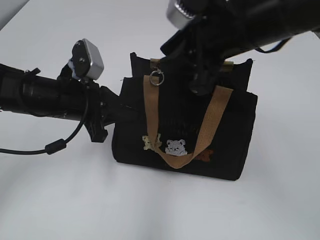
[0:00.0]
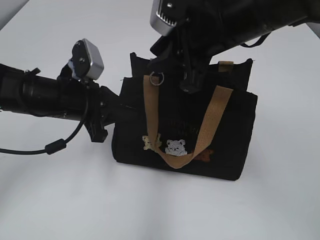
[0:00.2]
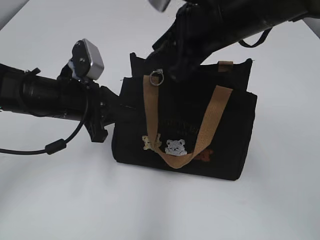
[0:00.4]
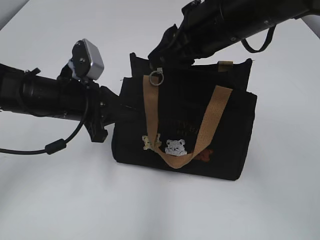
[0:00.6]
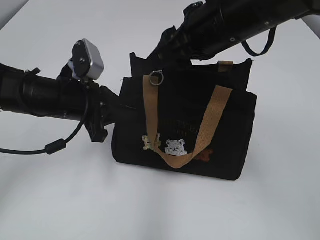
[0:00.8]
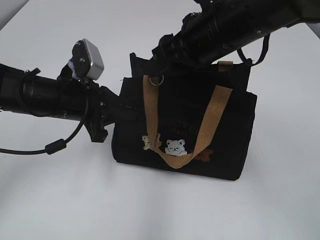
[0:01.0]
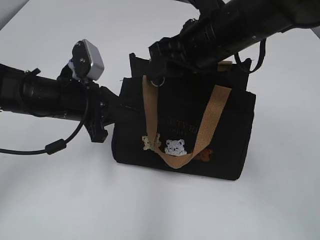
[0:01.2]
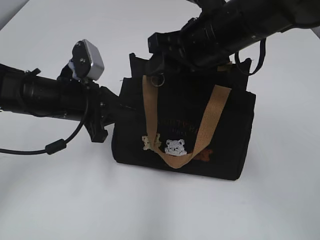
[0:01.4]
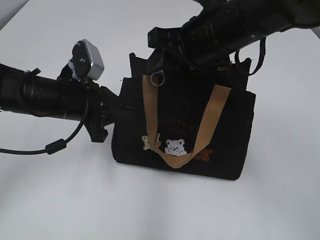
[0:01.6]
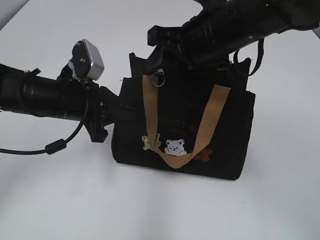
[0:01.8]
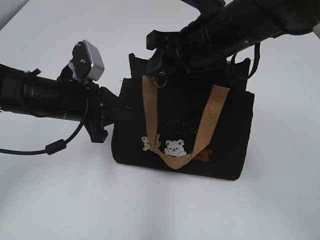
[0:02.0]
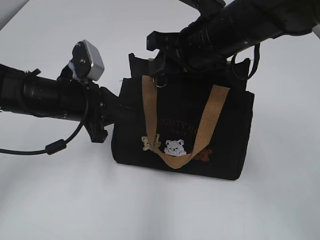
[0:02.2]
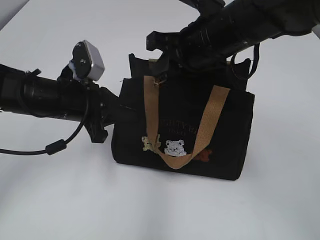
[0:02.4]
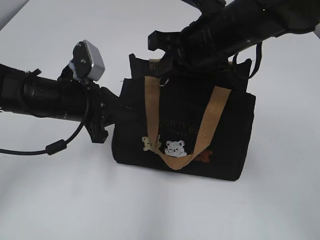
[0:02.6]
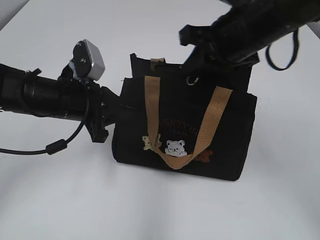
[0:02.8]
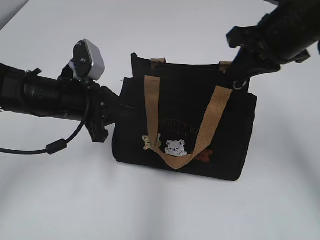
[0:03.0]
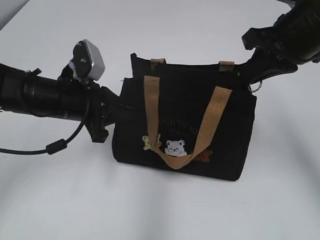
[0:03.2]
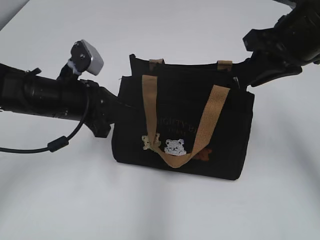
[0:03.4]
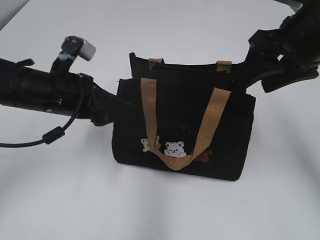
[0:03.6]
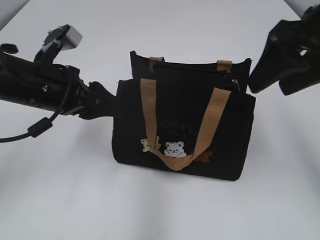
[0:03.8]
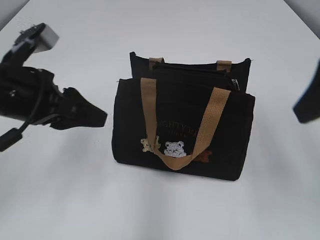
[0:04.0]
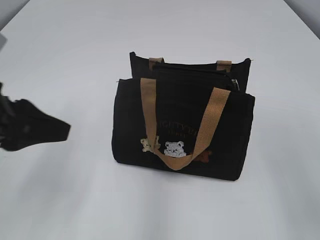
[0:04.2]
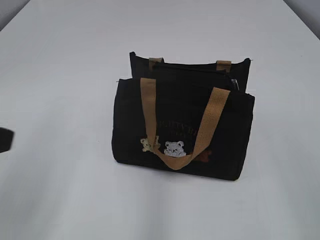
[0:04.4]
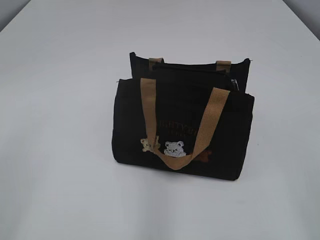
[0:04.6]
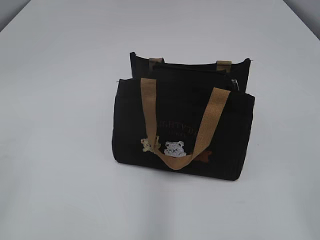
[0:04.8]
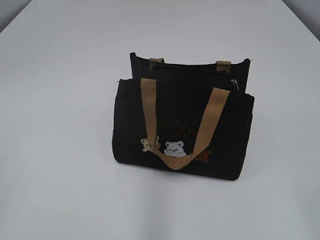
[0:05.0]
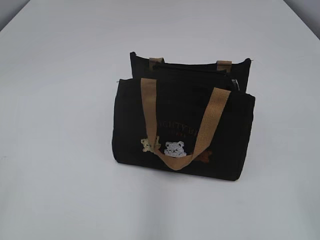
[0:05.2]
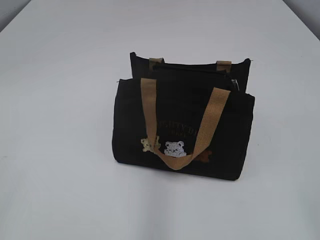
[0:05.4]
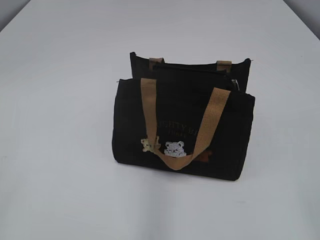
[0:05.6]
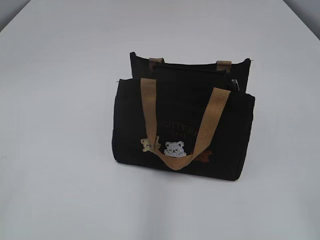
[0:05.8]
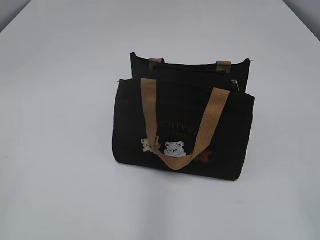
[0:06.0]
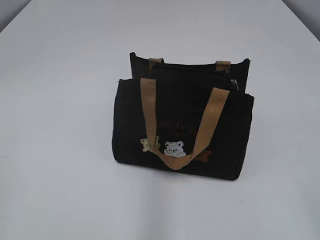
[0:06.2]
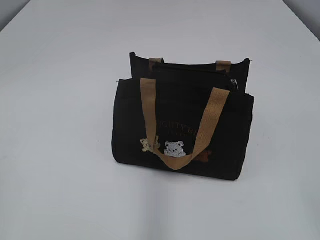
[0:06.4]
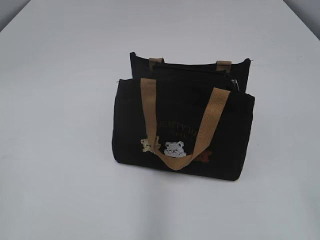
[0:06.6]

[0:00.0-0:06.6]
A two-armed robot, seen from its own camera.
Step, 0:00.0 to 0:03.2: Pull open the zipper with your right hand.
Step, 0:03.4 to 0:03.8: Hold the bag with your left hand.
0:01.6 to 0:03.2: The right gripper goes about 10 cm to the right, and closes its fingers.
0:03.2 to 0:05.0: The left gripper travels backward, to the left and upward by some 35 cm, and opens up. Meanwhile the right gripper moves backward, roughly 30 cm, and opens up.

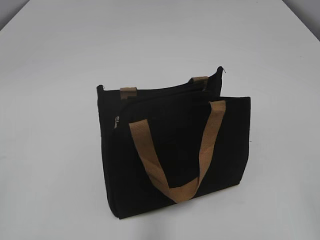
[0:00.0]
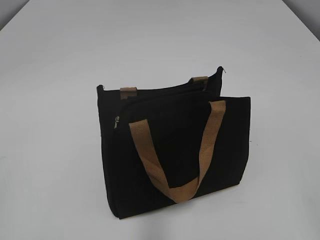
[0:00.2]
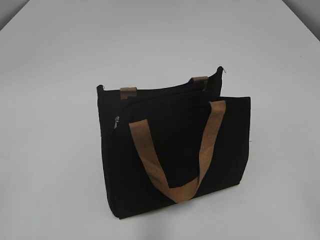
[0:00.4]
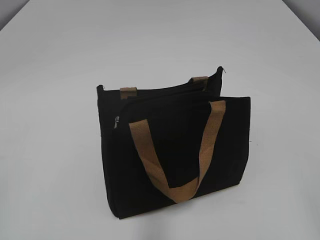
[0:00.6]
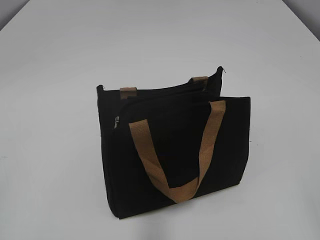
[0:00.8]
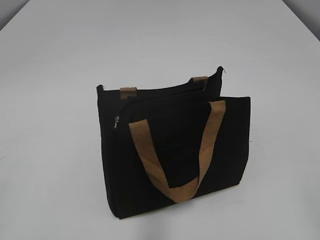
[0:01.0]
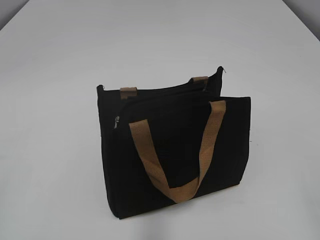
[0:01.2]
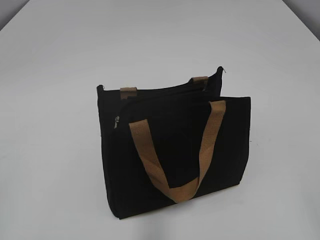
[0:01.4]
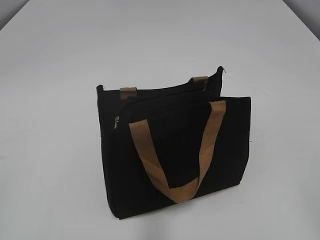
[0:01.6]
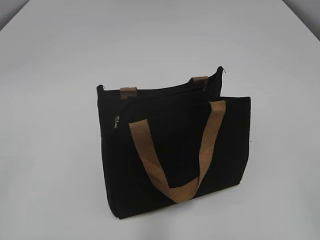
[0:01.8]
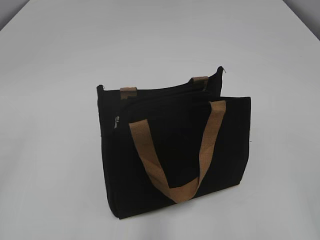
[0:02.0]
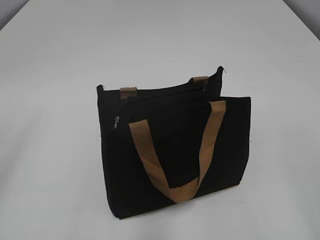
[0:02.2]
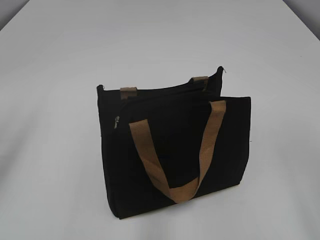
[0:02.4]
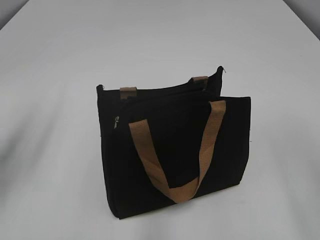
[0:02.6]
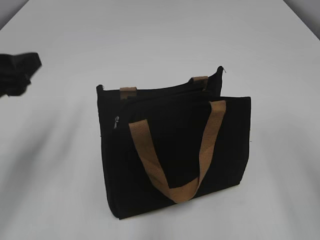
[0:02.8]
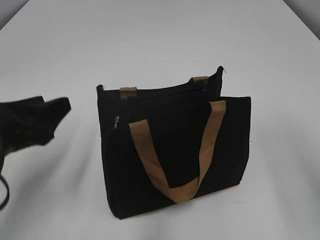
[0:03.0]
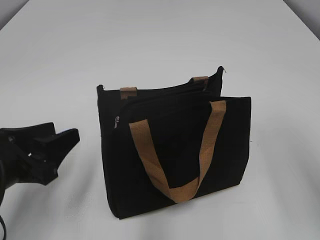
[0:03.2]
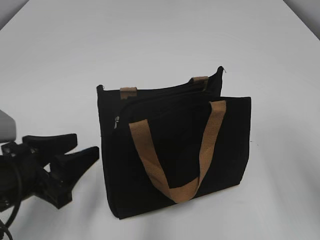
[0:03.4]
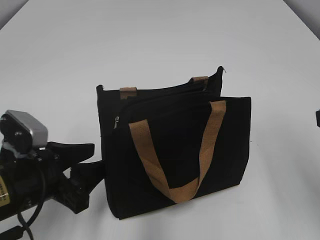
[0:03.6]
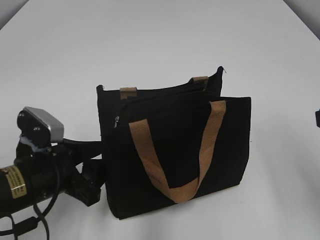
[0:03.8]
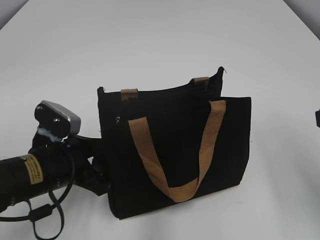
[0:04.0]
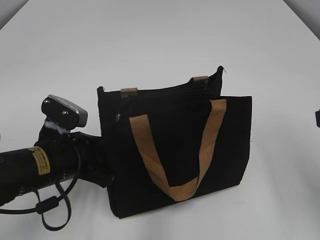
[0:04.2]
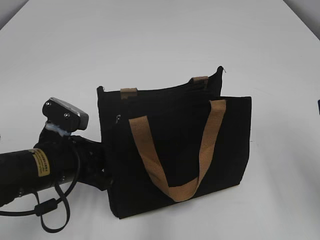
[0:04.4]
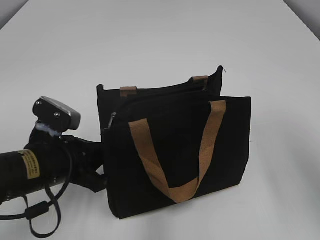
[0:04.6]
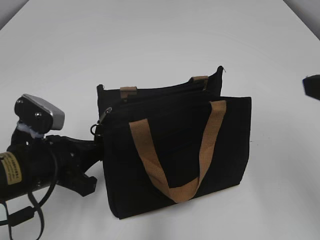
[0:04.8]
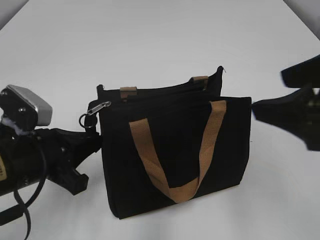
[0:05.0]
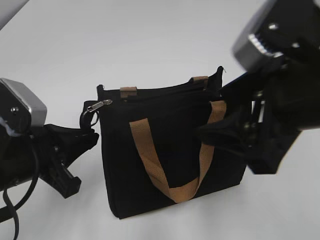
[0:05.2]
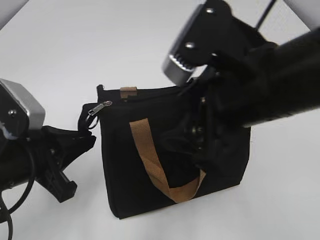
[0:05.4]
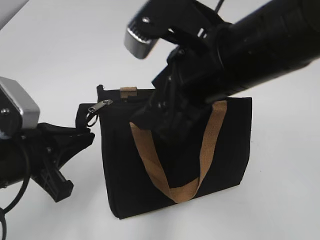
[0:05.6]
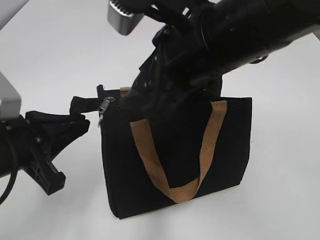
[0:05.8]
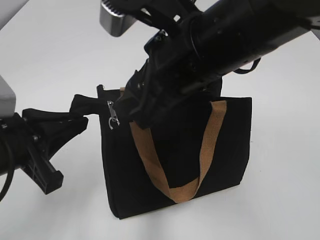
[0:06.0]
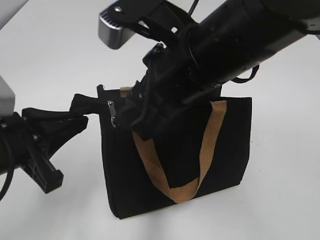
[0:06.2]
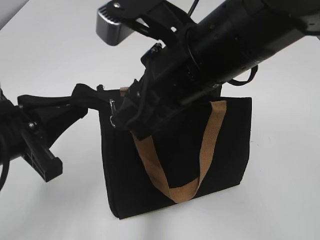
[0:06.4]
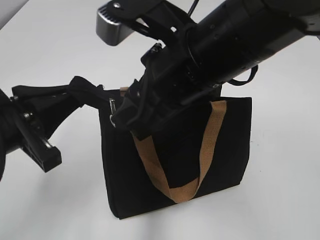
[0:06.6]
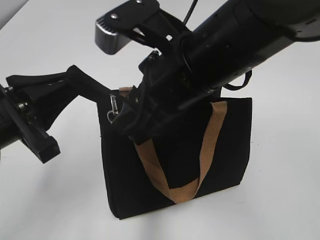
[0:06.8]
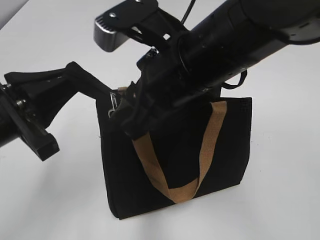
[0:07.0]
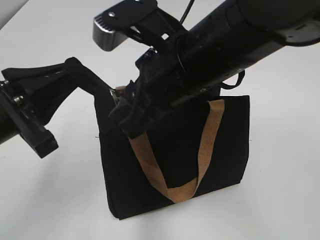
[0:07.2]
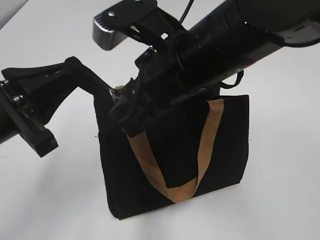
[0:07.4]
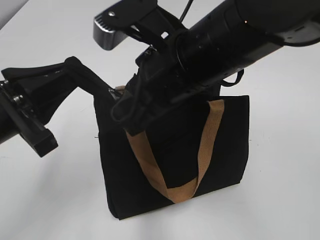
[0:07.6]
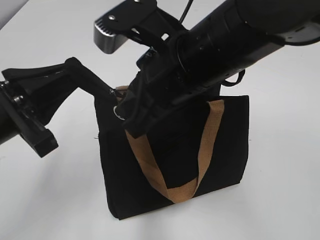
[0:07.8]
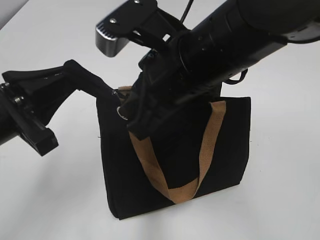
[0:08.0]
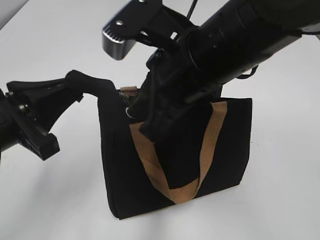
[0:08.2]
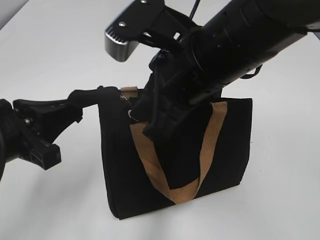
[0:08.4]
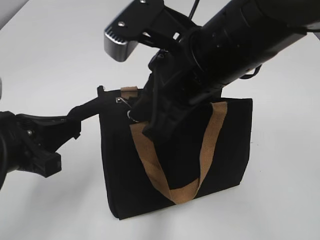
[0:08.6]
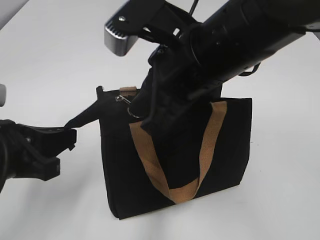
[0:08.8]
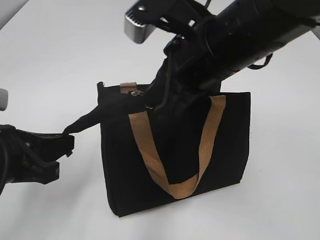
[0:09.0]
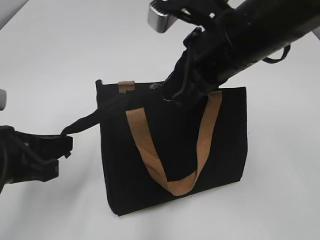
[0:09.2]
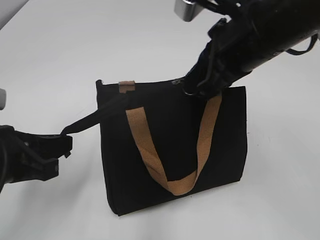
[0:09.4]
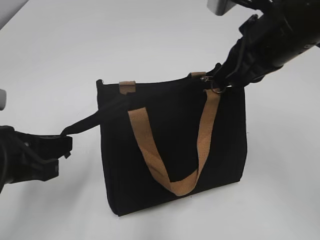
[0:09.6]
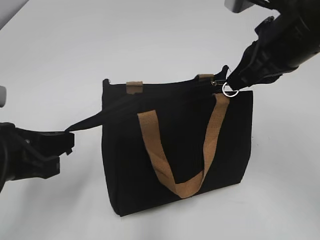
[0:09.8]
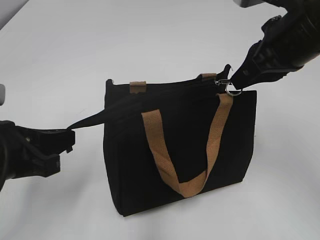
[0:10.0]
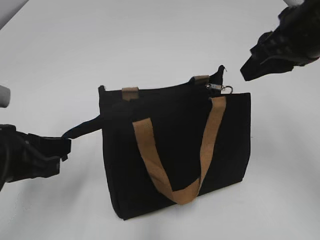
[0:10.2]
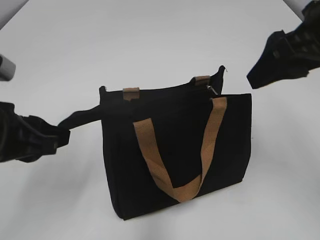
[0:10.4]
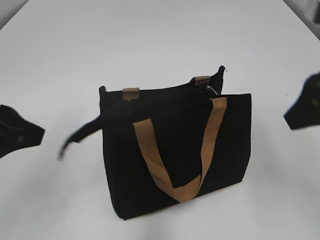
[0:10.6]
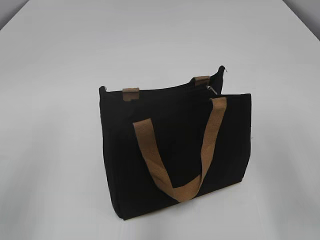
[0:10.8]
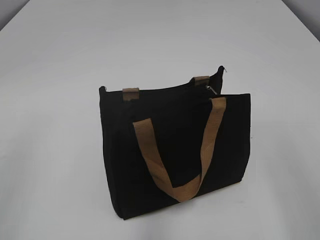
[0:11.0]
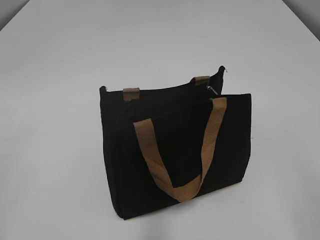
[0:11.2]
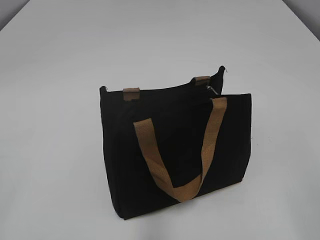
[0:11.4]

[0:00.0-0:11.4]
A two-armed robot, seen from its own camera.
Step, 0:00.0 to 0:10.0: Zip up the bag with your right hand.
Step, 0:10.2 to 0:10.4: Grab the zipper with your left hand.
0:01.4 to 0:02.8: The left gripper moves forward, roughly 25 cm.
0:02.8 to 0:04.2: The right gripper heads forward, covering about 5 cm. Meanwhile the left gripper heads downward and to the right, covering roughly 15 cm.
0:04.2 to 0:05.6: The right gripper goes some 20 cm to the left. The left gripper heads upward, covering some 5 cm, and closes its fingers.
0:05.6 to 0:07.2: The left gripper travels upward by roughly 5 cm. Meanwhile the right gripper shifts by about 5 cm, and closes up.
0:07.2 to 0:08.6: The right gripper closes.
0:08.6 to 0:10.0: The right gripper heads to the right, covering approximately 15 cm.
0:10.0 to 0:11.4: The left gripper travels backward, to the left and upward by roughly 20 cm, and opens; the right gripper shifts approximately 25 cm backward, and opens its fingers.

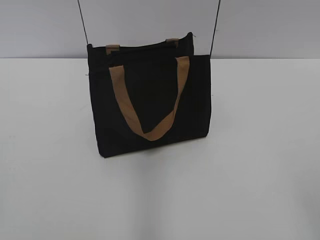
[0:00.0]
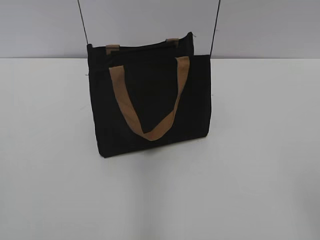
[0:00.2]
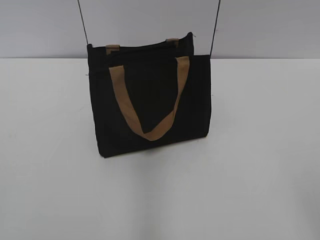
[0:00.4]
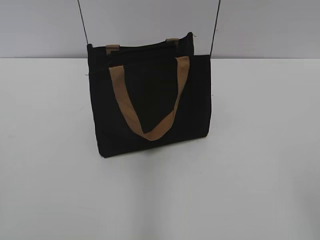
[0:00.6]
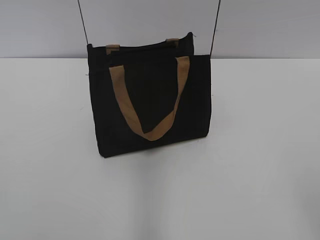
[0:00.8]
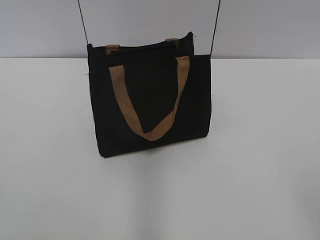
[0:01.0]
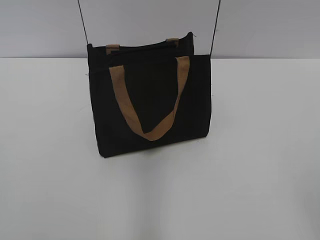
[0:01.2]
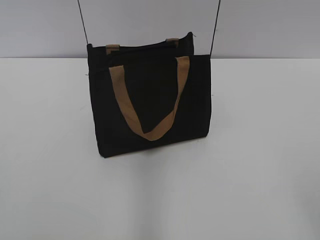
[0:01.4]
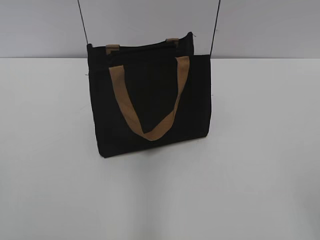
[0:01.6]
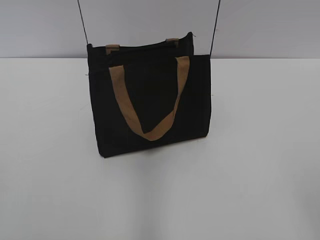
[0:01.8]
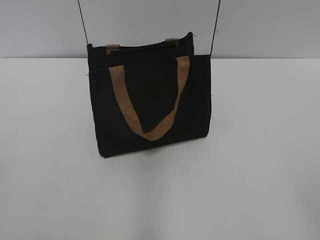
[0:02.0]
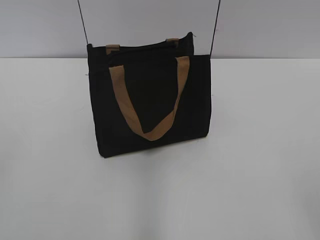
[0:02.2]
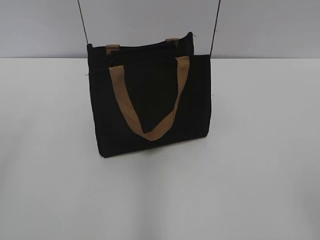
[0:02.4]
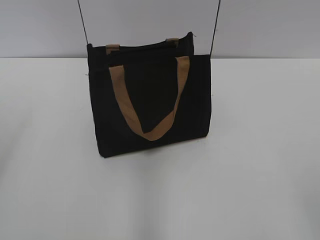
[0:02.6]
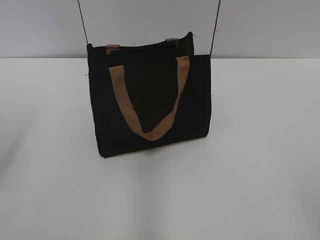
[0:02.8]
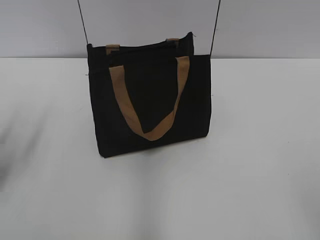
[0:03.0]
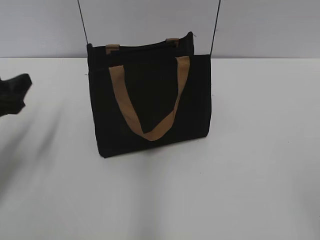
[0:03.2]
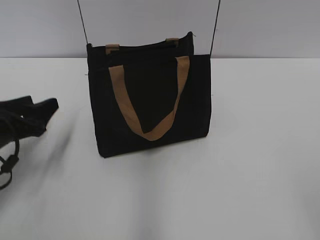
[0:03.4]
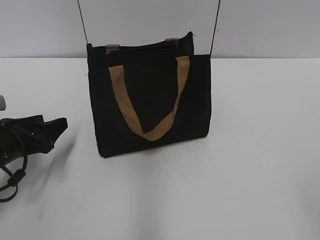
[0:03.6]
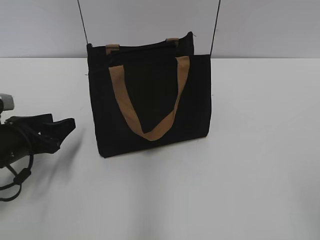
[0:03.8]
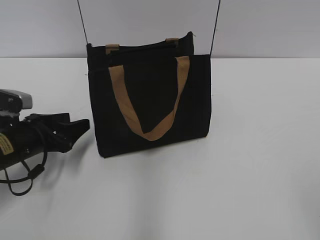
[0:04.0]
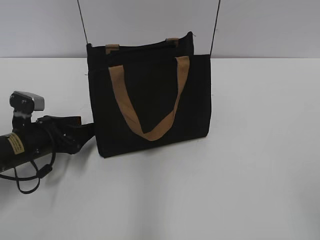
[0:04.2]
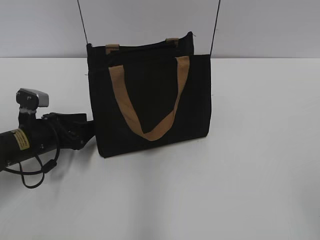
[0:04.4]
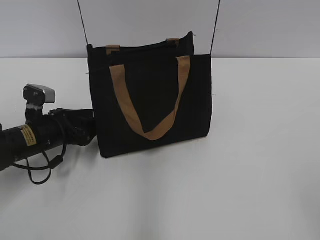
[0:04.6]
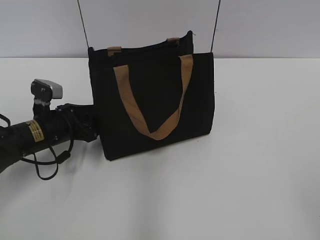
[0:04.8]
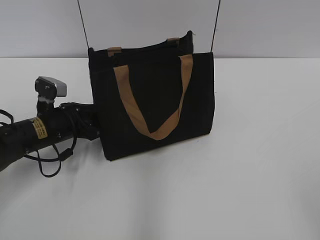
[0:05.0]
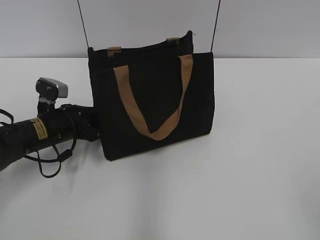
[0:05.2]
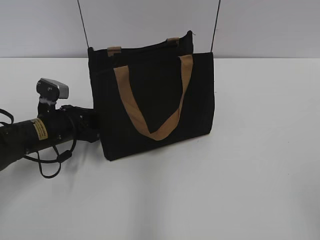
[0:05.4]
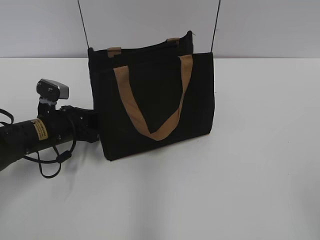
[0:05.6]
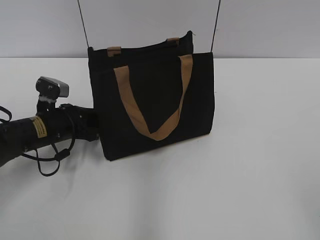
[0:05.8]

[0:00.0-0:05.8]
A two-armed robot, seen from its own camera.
0:02.8 to 0:04.4: The left gripper travels downward, forward and to the right by some 25 cm.
0:04.4 to 0:05.8: The left gripper closes up.
